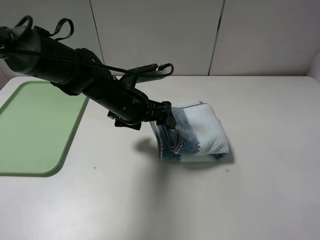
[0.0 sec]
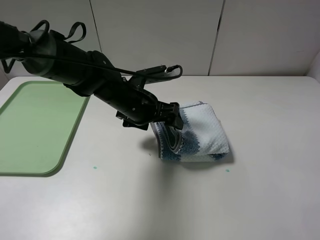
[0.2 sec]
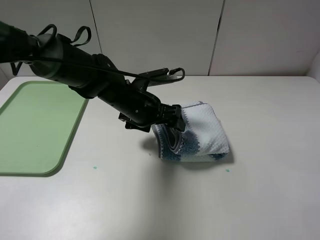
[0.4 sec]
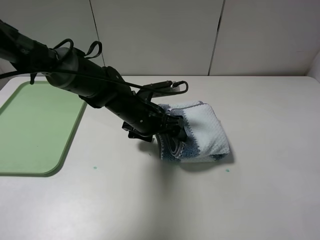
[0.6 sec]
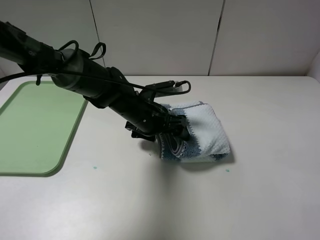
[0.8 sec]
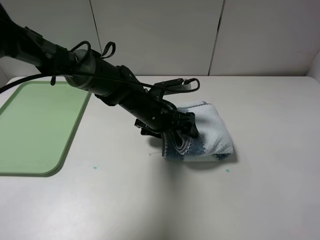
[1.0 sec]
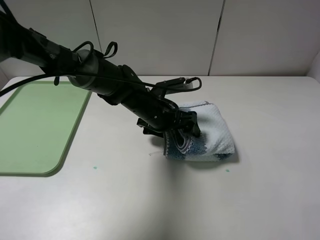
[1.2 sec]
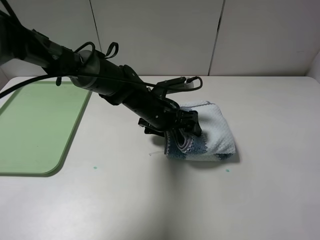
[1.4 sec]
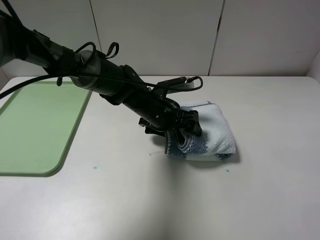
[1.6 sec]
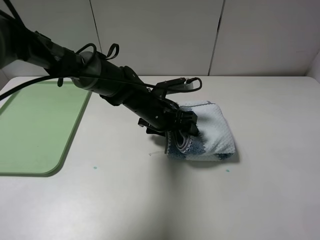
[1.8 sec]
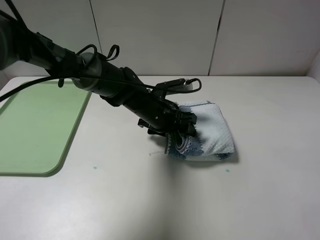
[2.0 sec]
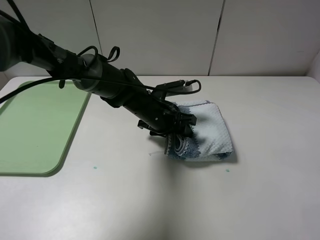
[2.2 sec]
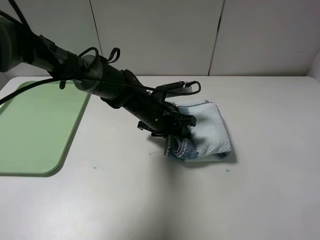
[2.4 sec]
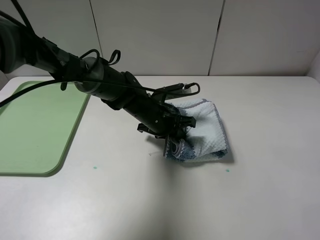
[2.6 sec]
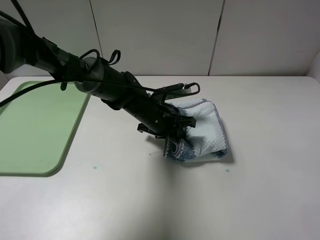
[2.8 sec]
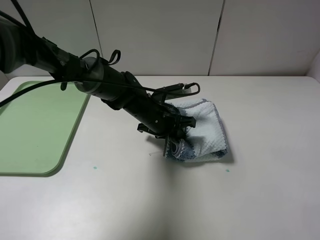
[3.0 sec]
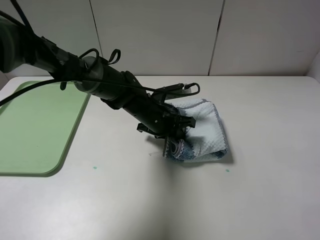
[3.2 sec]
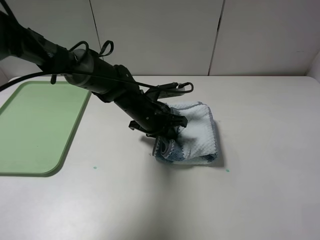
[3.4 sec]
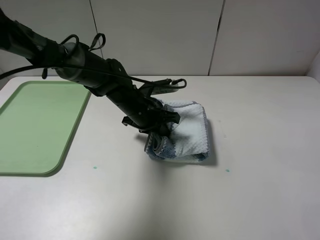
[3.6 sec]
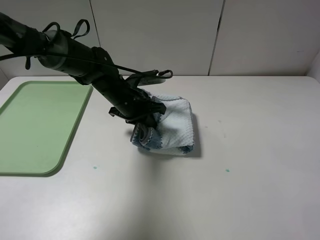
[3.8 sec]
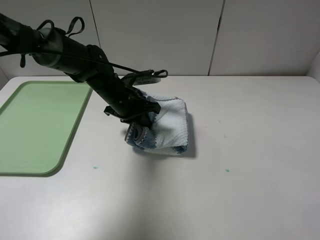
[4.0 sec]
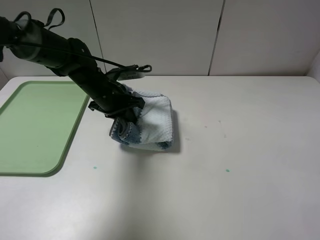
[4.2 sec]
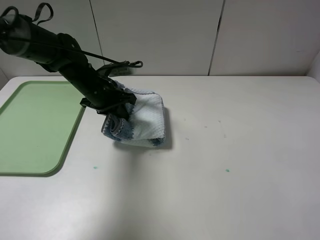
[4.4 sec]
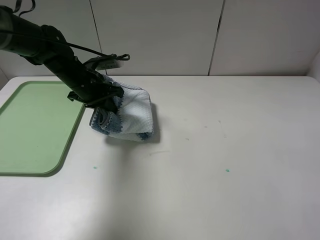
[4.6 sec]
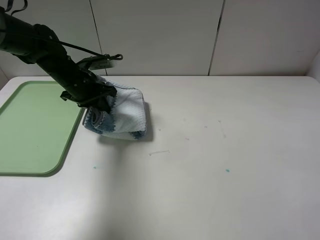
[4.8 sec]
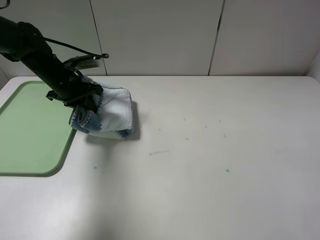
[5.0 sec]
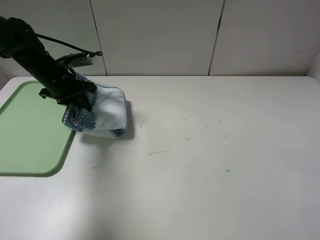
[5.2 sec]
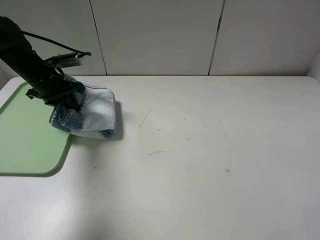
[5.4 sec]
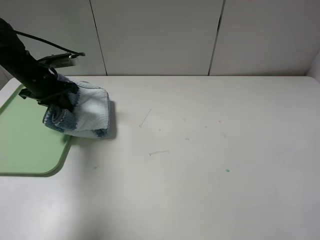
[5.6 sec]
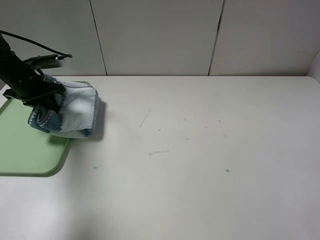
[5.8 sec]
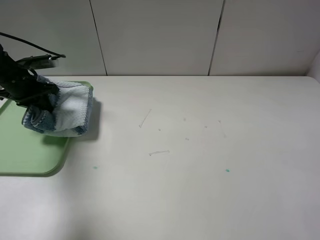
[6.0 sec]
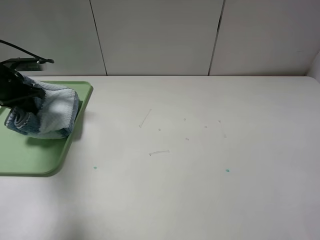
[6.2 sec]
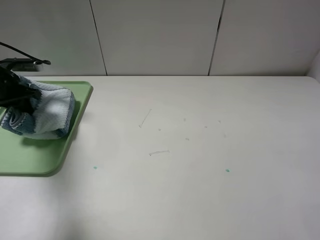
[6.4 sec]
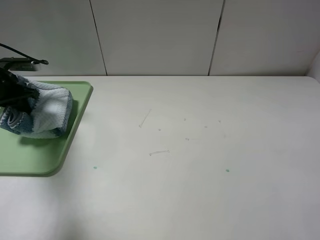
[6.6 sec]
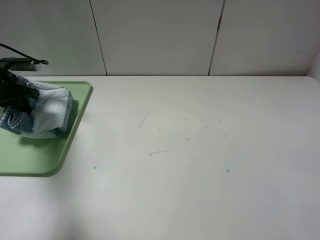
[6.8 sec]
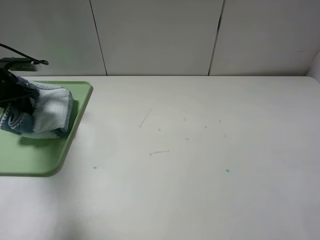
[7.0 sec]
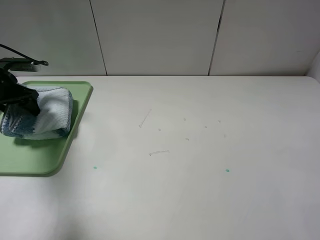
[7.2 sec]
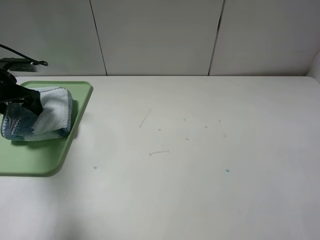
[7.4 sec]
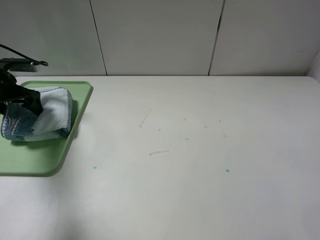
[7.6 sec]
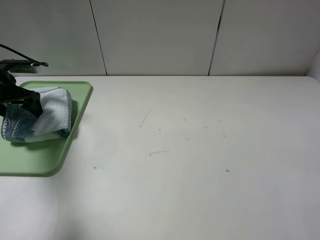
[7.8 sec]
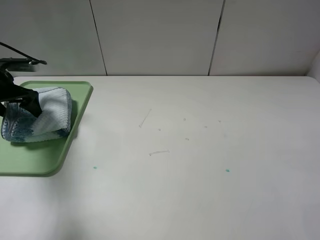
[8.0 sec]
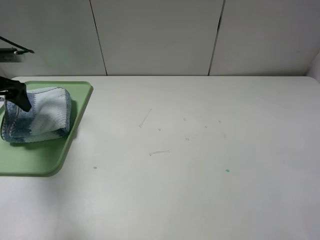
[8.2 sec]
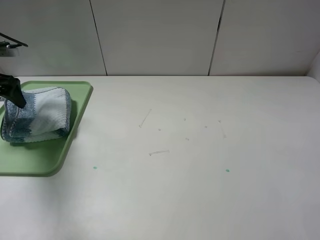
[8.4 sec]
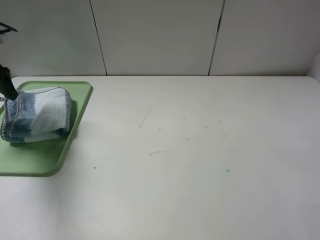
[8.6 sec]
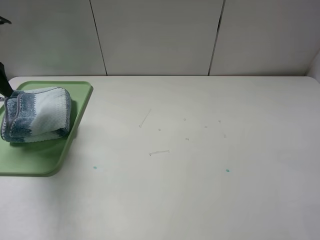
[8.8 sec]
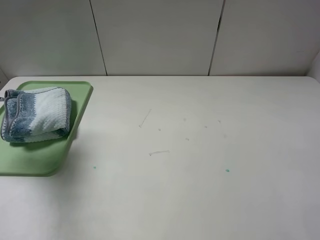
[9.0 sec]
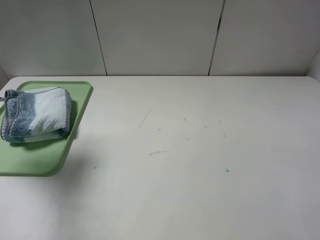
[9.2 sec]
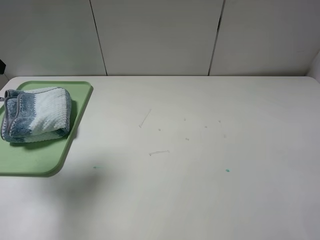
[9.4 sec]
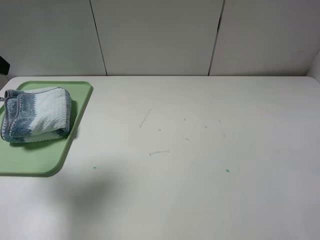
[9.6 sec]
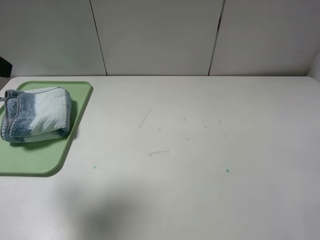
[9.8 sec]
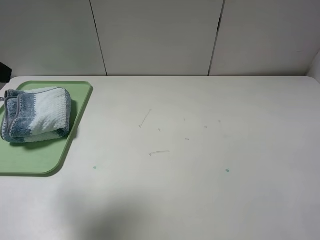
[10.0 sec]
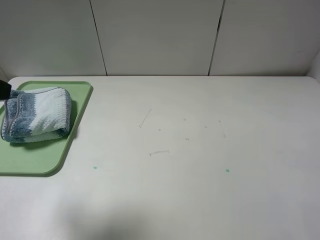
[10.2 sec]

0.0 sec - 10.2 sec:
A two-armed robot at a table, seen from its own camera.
Step, 0.0 sec - 3.4 sec: Grasp the blue white towel with the left gripper.
0.0 sec - 1.4 sec: The left gripper shifts approximately 10 cm to the right and downward.
1.4 sec - 3.0 sec: The left gripper closes its fingers.
3.0 sec - 4.4 sec: The left gripper goes some 15 cm to the left and upward.
4.4 sec - 5.8 sec: The left gripper shifts about 15 cm to the left.
5.8 sec - 7.2 sec: The left gripper goes about 5 cm to the left, and opens.
7.2 sec - 8.8 sec: The left gripper is displaced upward and backward by approximately 15 cm.
8.8 sec - 10.2 sec: The left gripper goes about 20 cm backward and to the right.

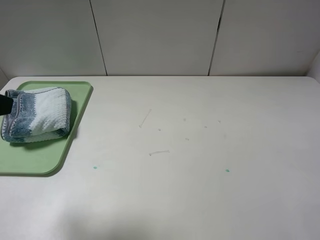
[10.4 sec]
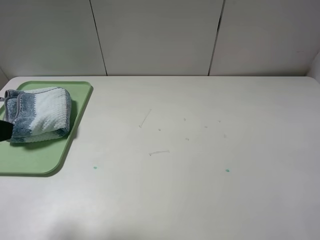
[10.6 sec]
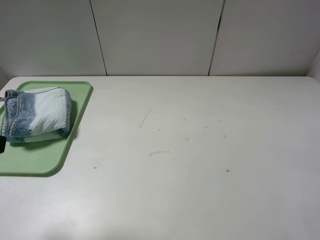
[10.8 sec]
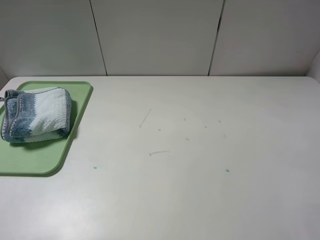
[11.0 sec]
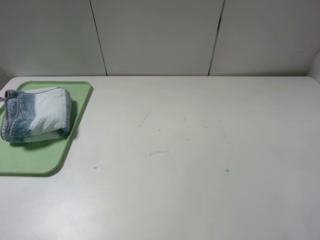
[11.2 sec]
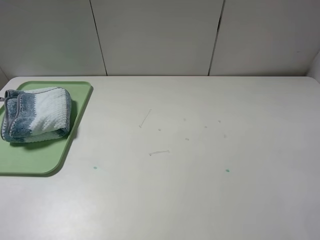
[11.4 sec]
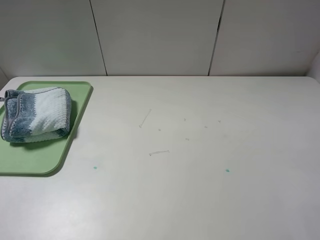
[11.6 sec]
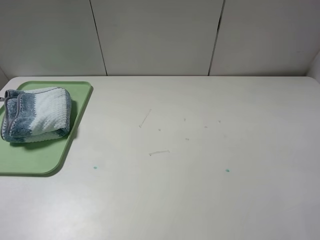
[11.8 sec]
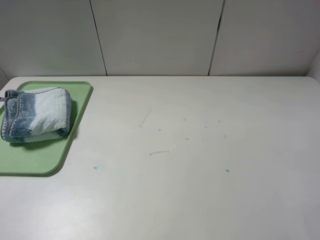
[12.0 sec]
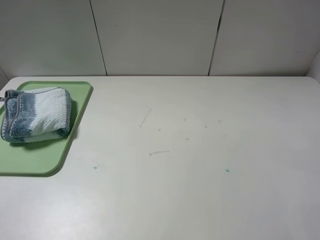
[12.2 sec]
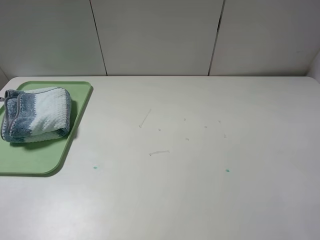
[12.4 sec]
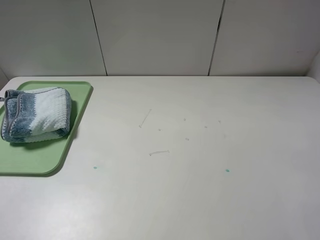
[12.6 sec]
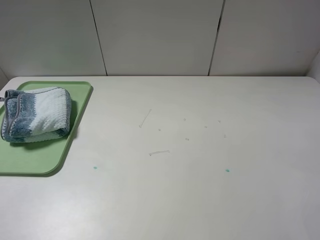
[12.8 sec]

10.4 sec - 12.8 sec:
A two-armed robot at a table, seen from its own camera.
10.4 sec - 11.6 sec: The left gripper heads backward, covering approximately 10 cm.
